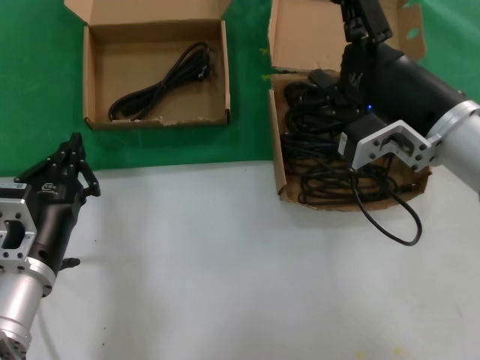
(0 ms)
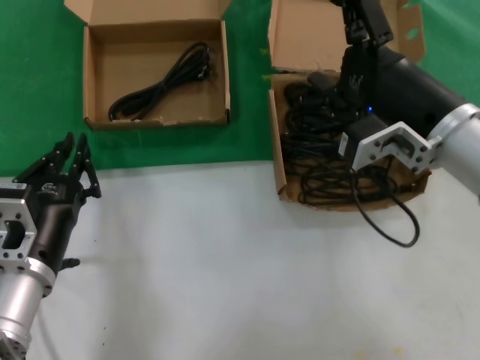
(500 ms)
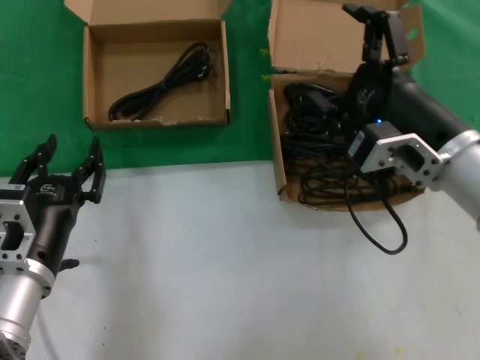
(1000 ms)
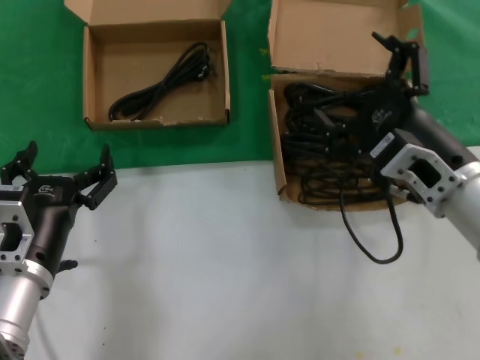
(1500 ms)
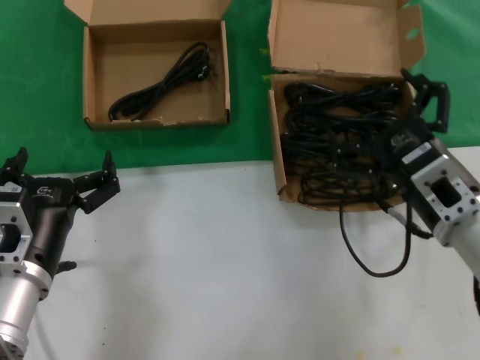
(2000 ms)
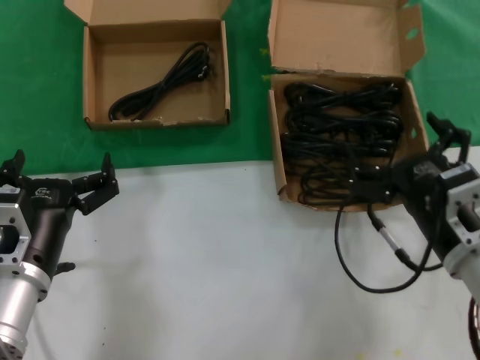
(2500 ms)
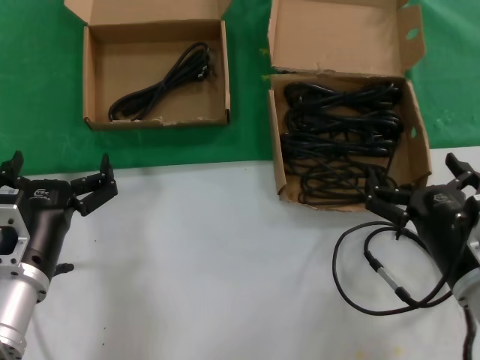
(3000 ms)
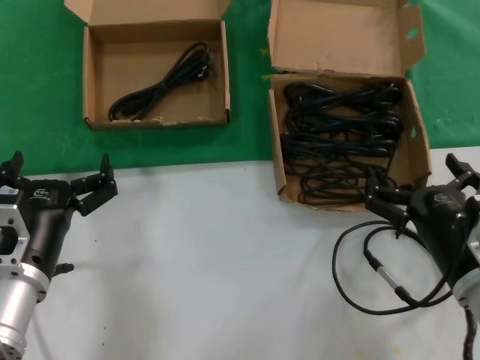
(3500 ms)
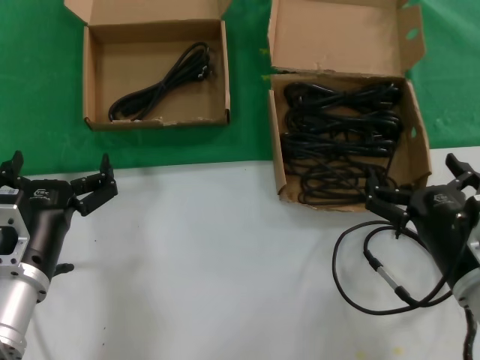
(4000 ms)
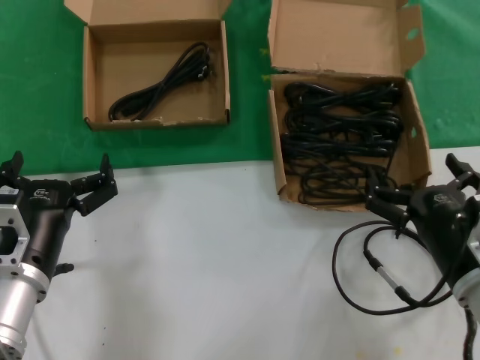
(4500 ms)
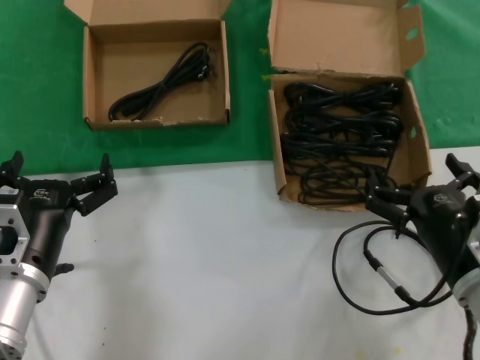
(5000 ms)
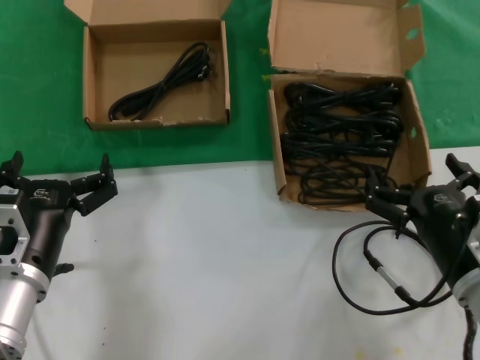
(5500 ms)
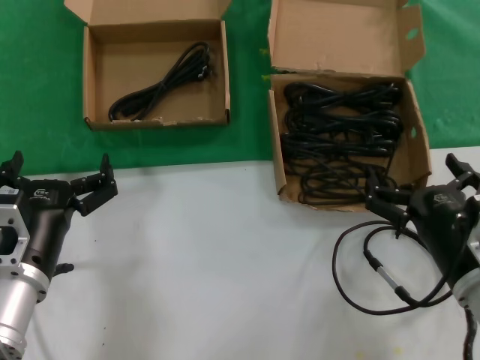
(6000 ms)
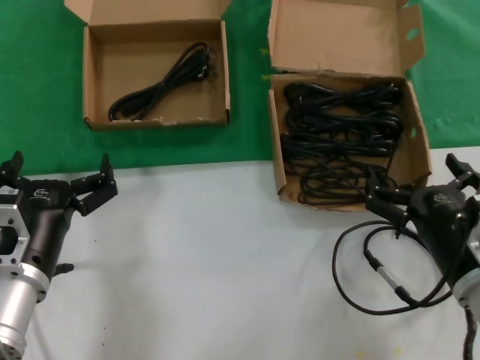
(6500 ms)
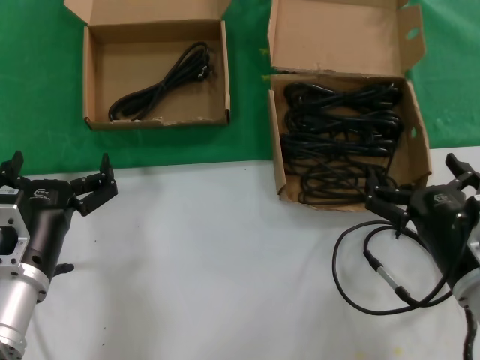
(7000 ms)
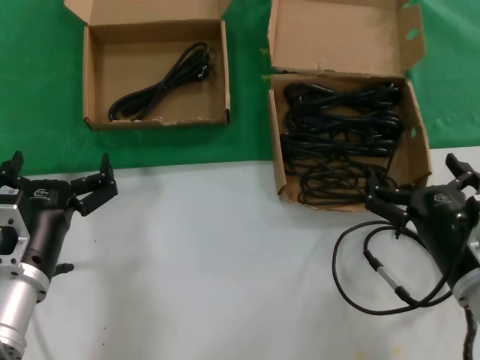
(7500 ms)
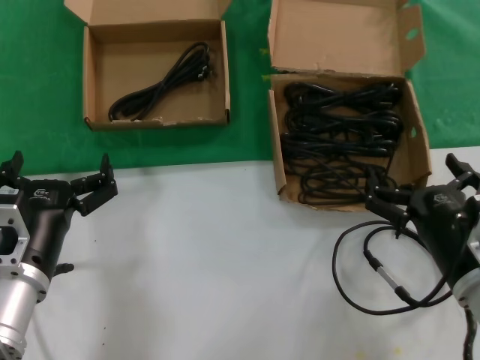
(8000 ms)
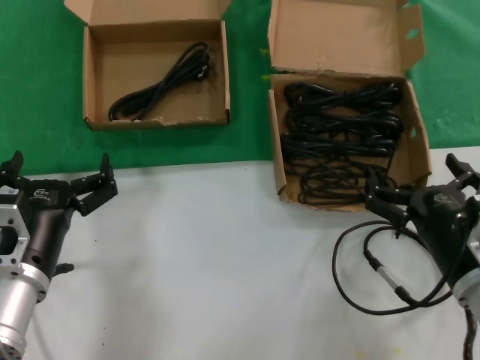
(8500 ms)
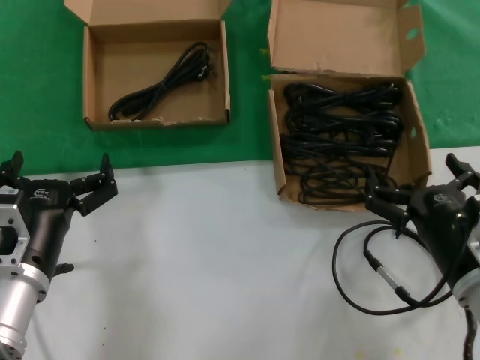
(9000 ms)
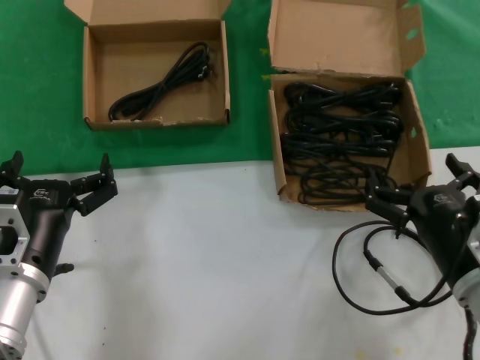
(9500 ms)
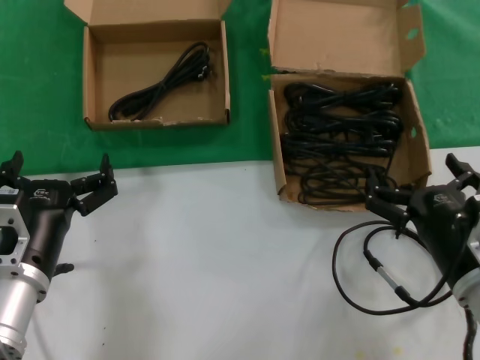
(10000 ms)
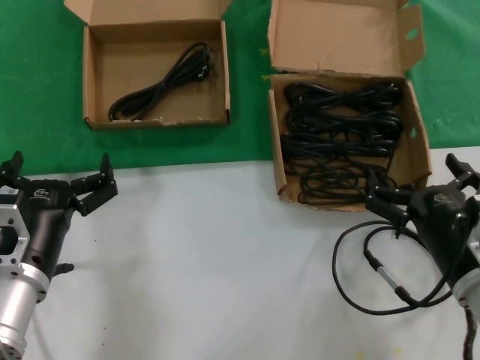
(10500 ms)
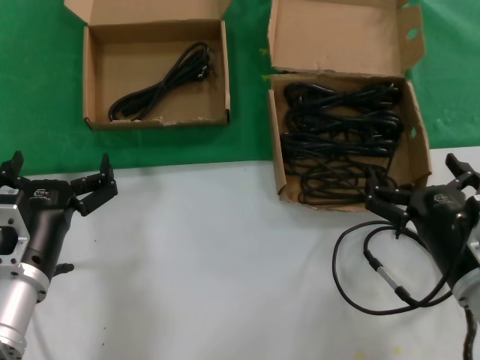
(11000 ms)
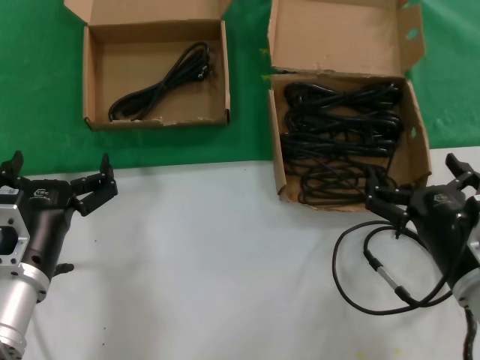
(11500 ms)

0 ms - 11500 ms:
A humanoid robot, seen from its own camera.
Task of the whole recording: take the parts from the box containing them and put them into an empty box.
0 ms - 2000 ms: The right hand goes roughly 10 cm downward.
2000 ms - 4000 ms: The right hand travels downward by approximately 5 cm.
4000 ms - 11500 ms: Both hands stay about where they are.
